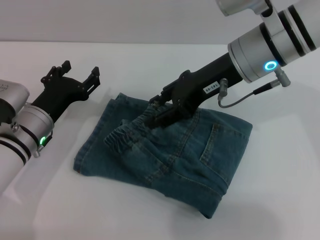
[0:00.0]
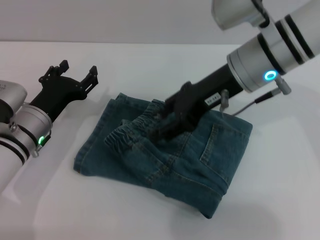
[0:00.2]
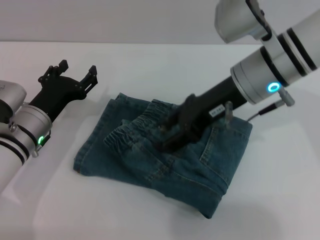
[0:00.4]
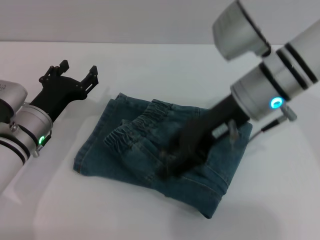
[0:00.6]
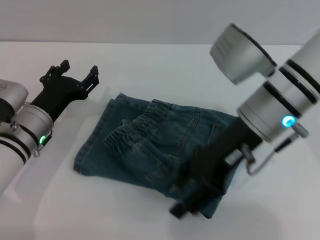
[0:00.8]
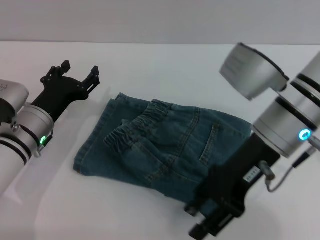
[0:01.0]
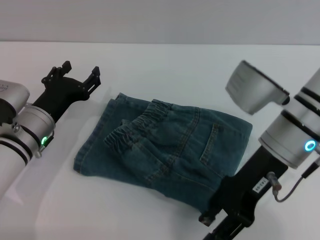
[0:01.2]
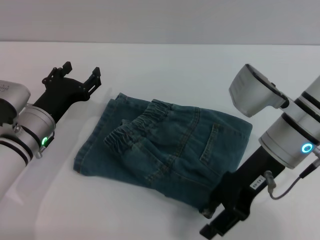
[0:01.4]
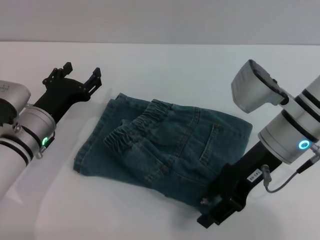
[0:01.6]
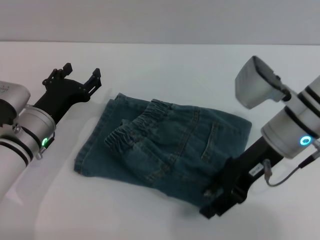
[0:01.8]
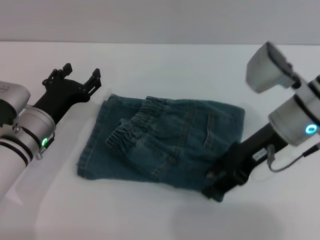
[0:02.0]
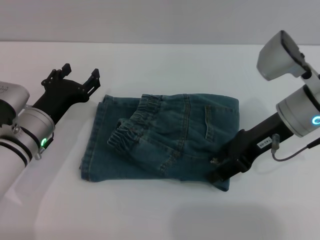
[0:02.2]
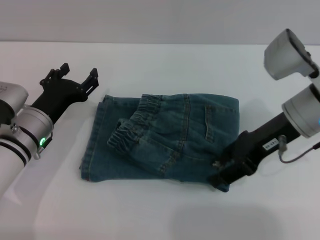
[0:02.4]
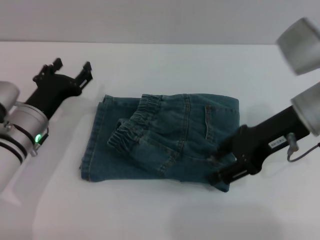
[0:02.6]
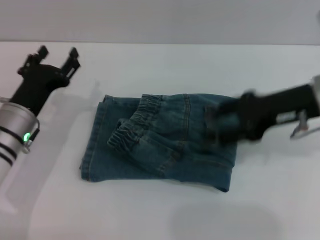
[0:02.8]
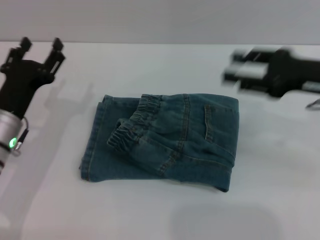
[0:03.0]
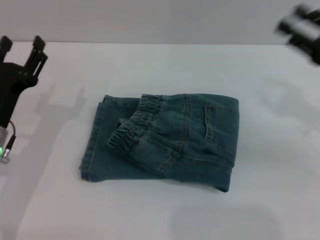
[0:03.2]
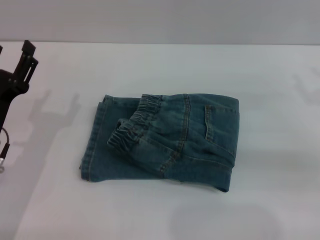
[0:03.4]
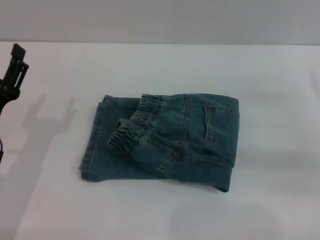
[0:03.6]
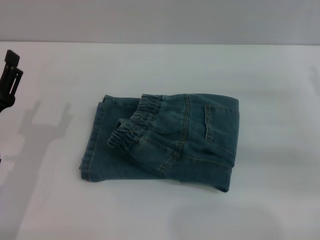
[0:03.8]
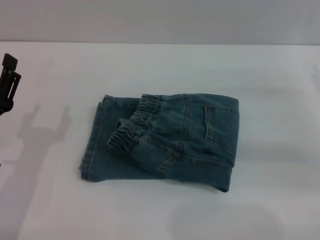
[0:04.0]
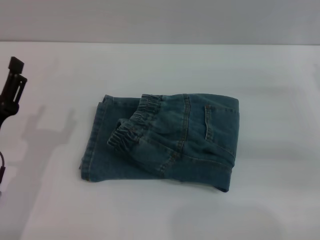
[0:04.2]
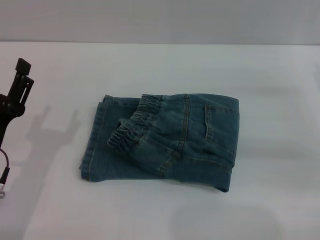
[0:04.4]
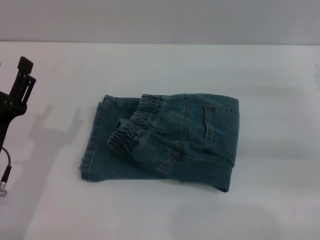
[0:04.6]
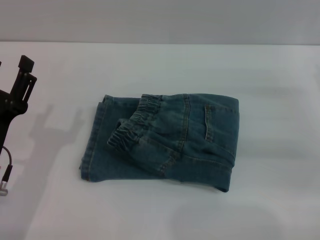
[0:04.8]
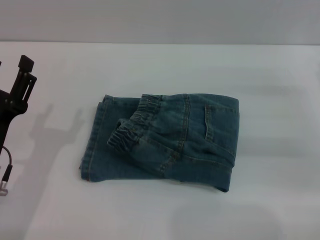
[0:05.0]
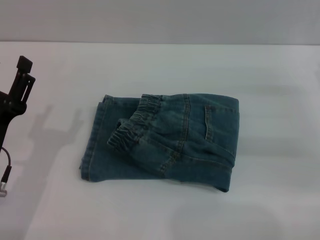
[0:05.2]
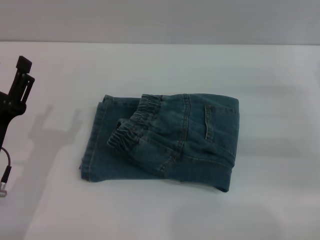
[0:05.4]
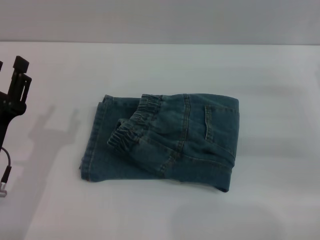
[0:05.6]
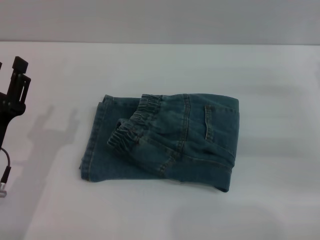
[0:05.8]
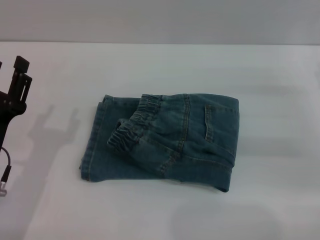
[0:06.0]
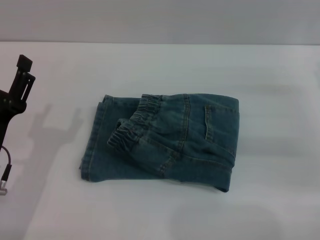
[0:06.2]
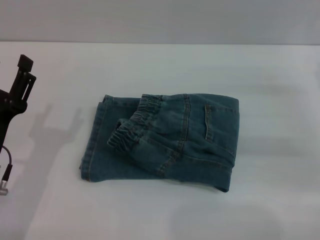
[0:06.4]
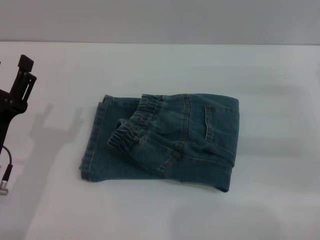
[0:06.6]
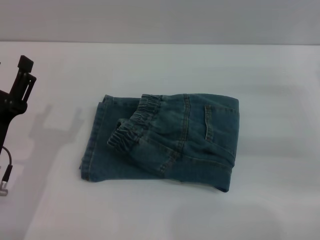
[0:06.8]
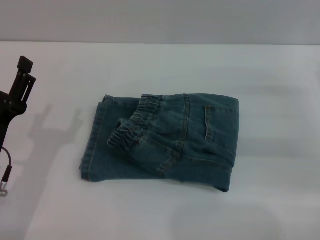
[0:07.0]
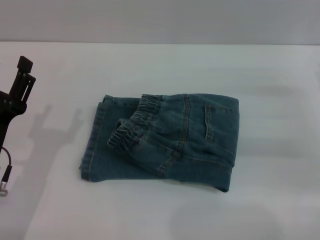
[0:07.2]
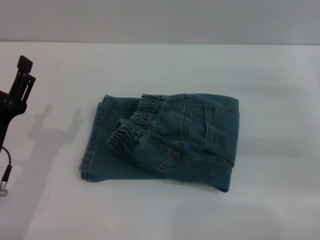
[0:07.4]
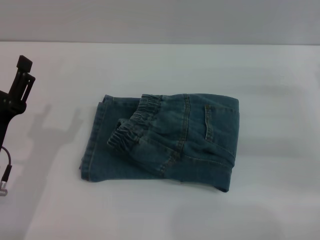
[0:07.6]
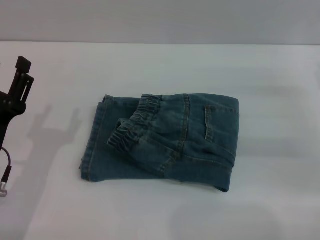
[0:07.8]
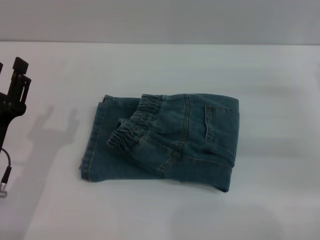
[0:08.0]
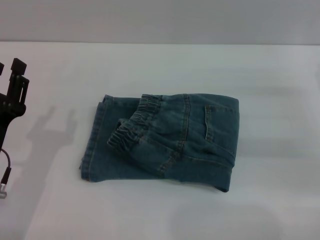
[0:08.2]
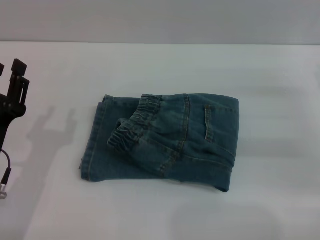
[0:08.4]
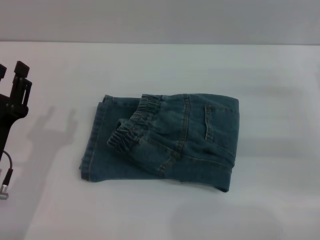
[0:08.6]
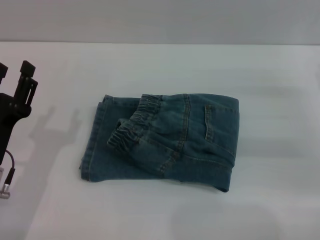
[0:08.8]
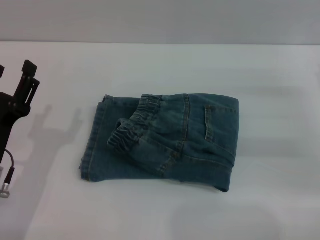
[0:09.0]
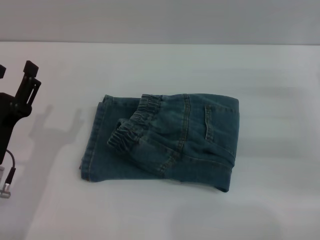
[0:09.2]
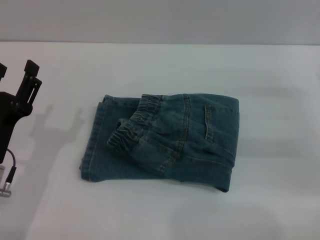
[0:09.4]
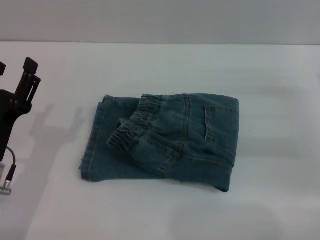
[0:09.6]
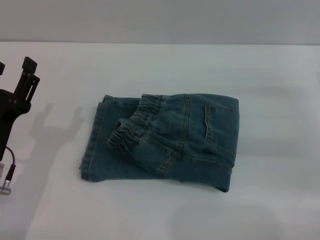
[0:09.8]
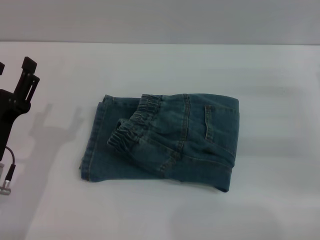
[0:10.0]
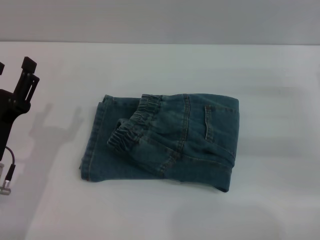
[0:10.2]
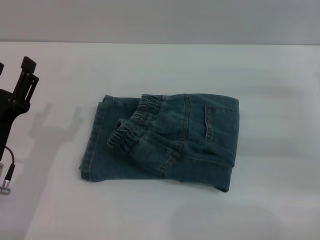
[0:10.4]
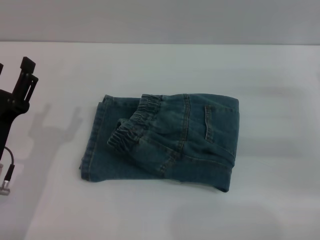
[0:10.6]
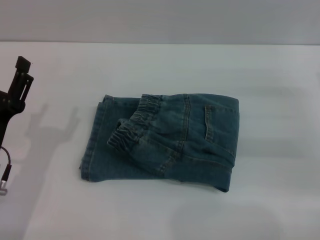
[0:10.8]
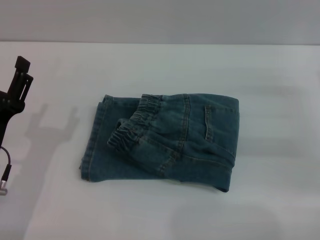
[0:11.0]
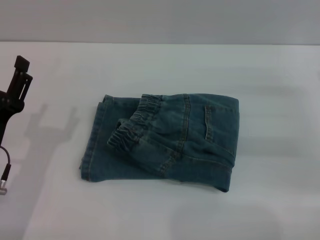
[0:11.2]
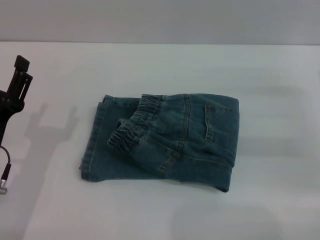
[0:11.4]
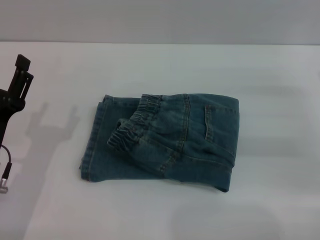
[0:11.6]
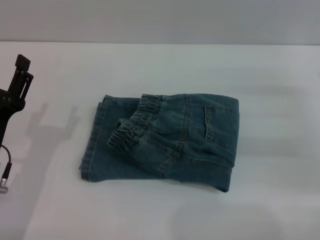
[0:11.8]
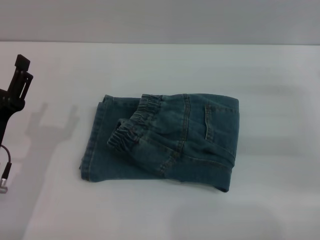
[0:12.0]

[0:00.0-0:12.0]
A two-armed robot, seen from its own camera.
Step, 0:00.0 to 0:02.8: Place the folded trousers onto the center area with the right grippers.
0:00.0 to 0:01.6: The right gripper is displaced downward and backward by approximately 10 cm.
0:01.6 to 0:03.0: The right gripper goes about 10 cm to the right.
0:03.0 to 0:04.4: The right gripper moves to the right and downward, some 10 cm. The left gripper goes about 10 cm backward.
0:04.4 to 0:07.6: Both grippers stay about where they are.
0:07.6 to 0:12.0: Both grippers stay put.

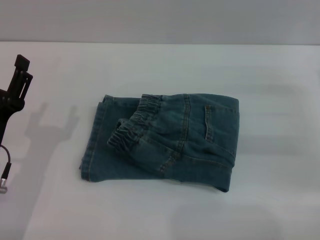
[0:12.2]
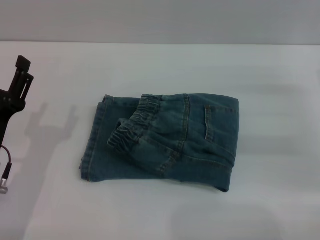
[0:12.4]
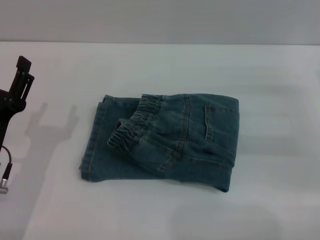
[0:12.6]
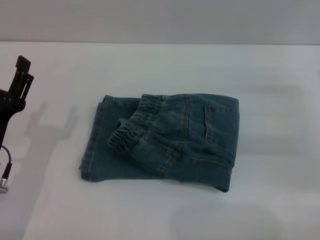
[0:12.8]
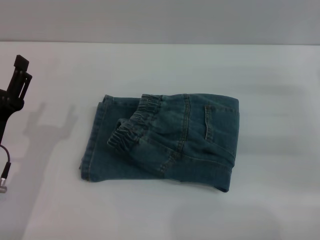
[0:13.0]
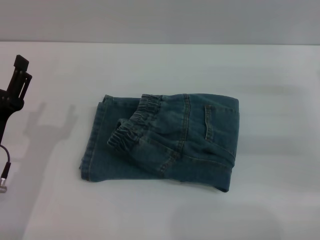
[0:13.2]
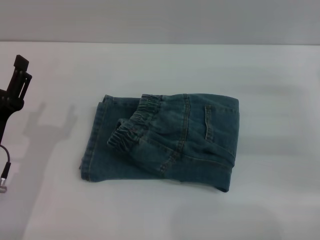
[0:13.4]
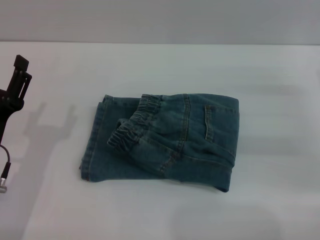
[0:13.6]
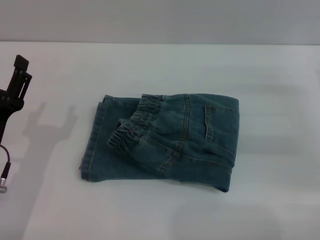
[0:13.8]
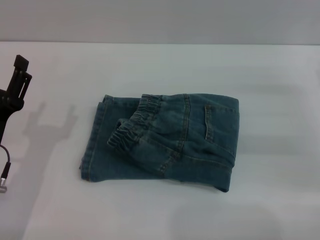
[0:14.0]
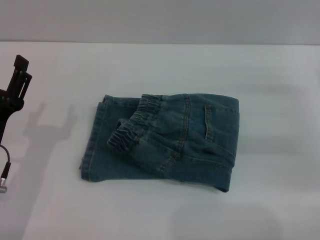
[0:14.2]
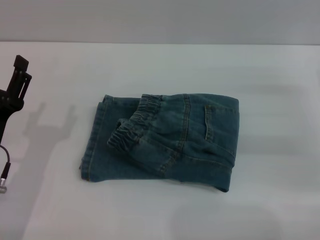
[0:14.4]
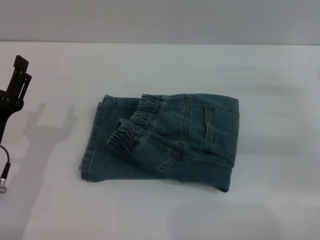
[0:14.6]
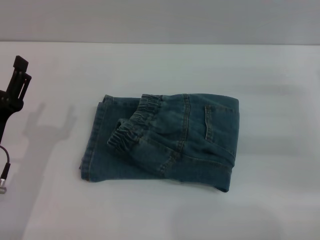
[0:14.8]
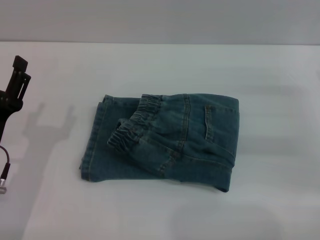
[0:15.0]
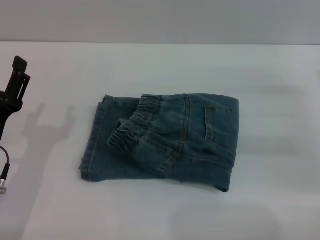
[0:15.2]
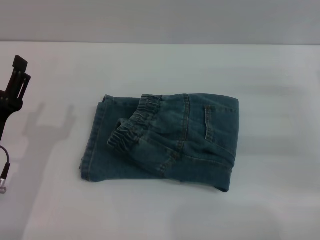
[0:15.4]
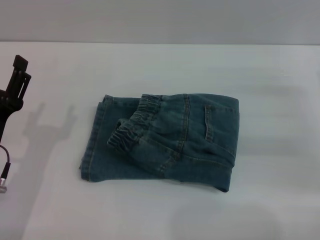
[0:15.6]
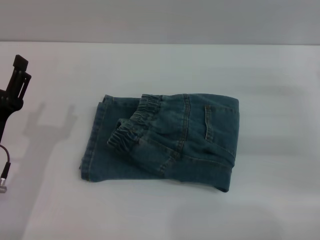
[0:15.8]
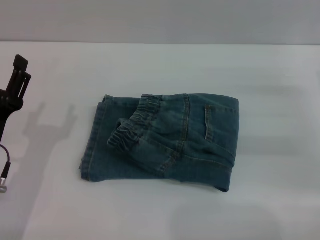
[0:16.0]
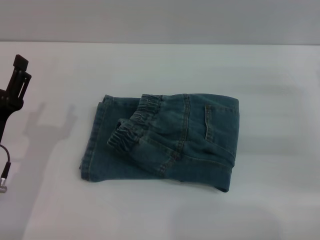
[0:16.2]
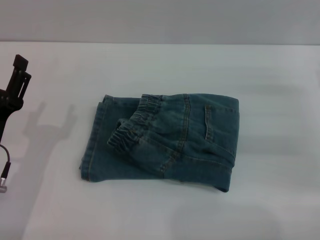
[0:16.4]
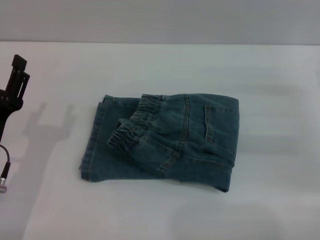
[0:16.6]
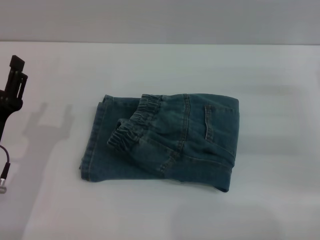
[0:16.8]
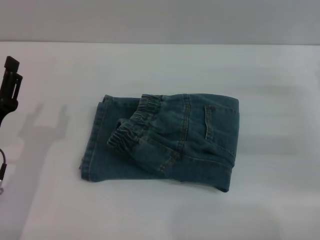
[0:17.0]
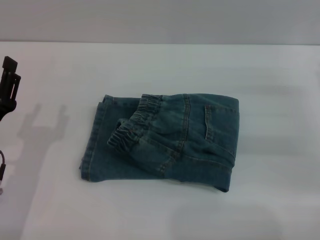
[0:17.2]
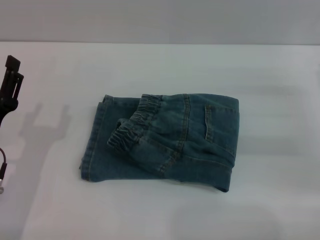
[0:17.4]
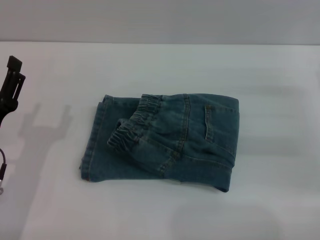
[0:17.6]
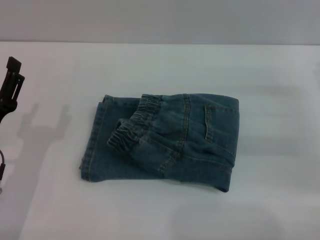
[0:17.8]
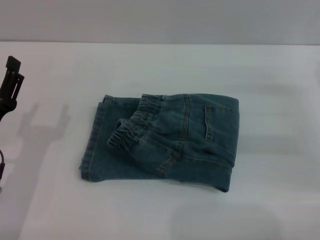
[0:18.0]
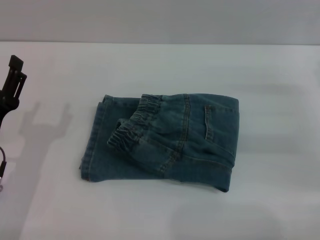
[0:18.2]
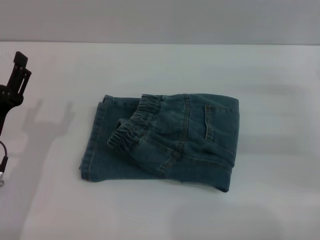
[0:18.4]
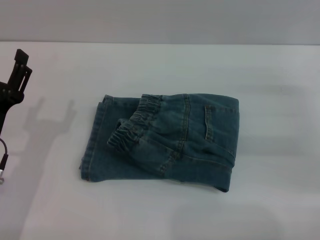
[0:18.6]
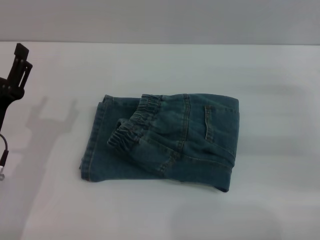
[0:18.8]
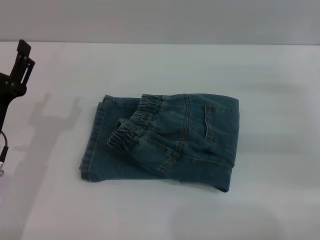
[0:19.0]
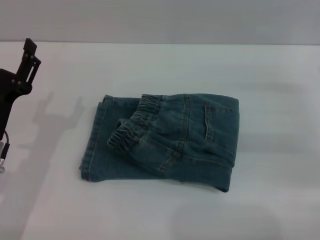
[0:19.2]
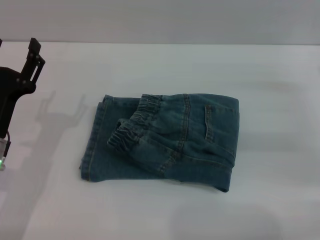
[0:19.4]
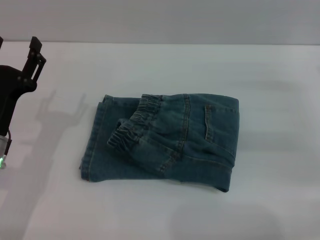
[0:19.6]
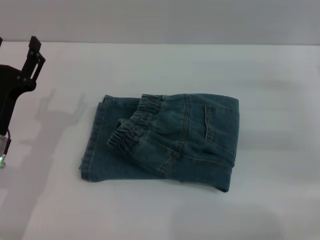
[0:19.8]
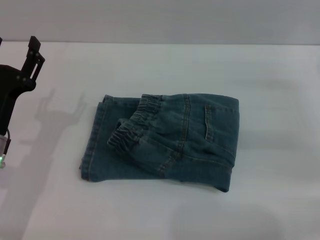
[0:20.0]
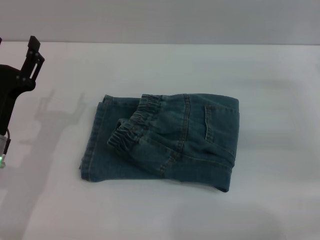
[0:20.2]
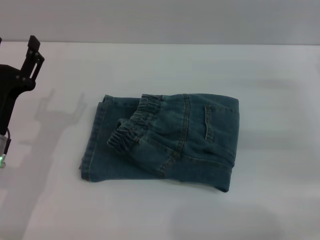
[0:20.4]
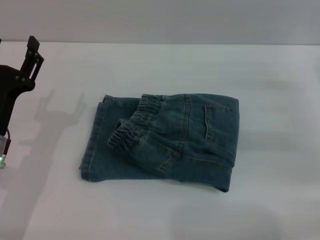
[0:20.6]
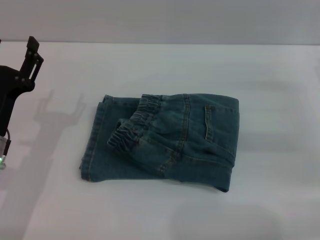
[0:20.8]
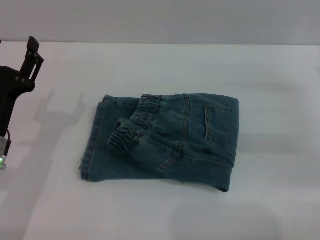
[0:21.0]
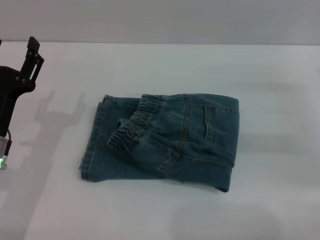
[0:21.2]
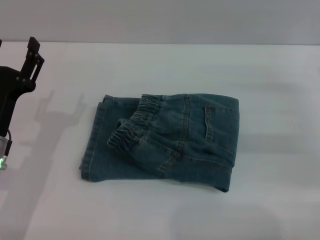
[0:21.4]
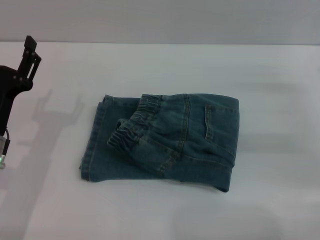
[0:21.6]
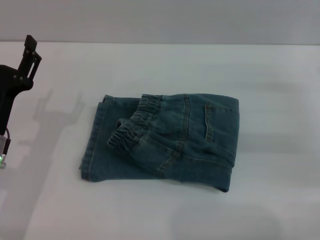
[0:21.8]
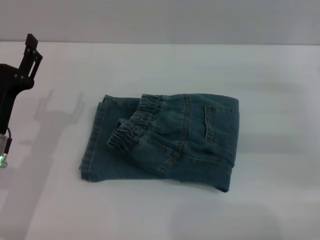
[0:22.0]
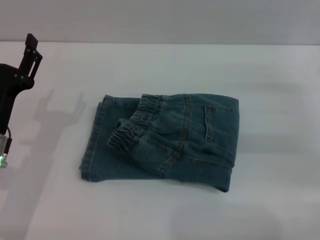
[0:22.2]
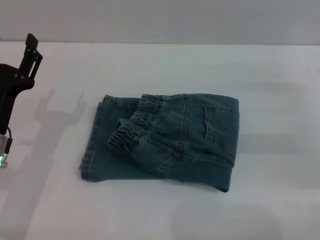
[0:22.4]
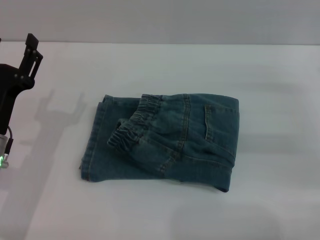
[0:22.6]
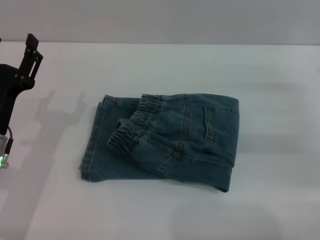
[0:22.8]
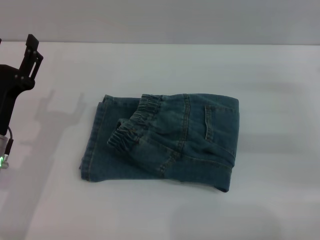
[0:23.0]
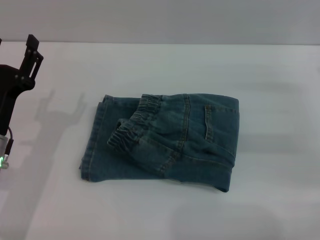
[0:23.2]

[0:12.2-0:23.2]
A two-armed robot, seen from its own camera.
0:12.2 to 0:18.4: Both grippers stay put.
0:18.4 to 0:20.0: There are only small adjustments of the grippers.
0:20.0 to 0:23.2: Neither gripper changes place.
